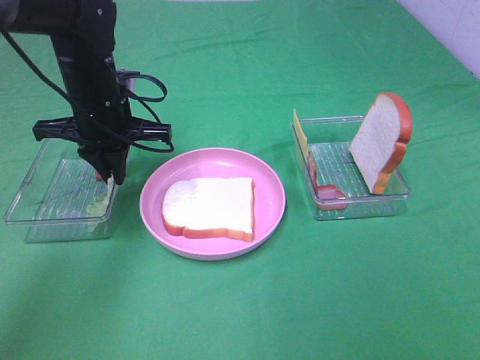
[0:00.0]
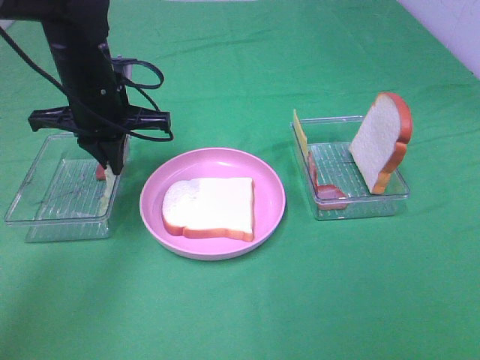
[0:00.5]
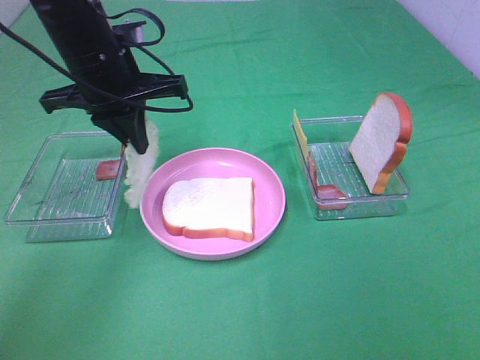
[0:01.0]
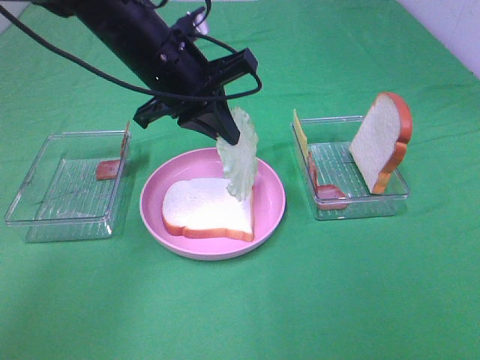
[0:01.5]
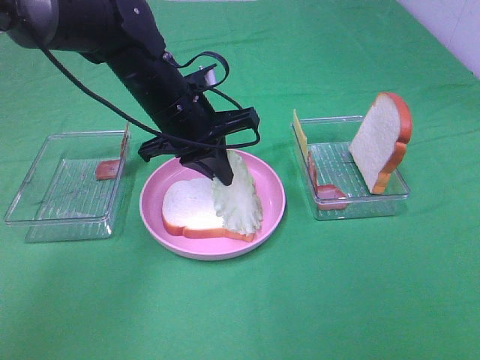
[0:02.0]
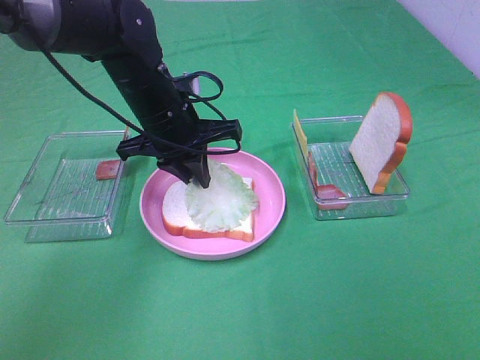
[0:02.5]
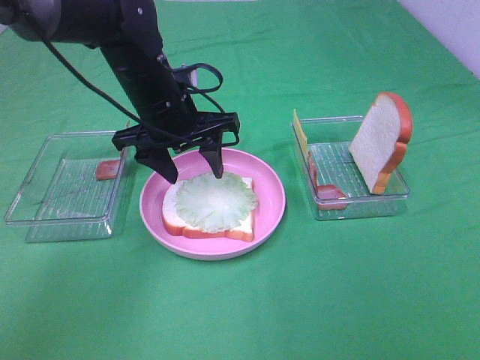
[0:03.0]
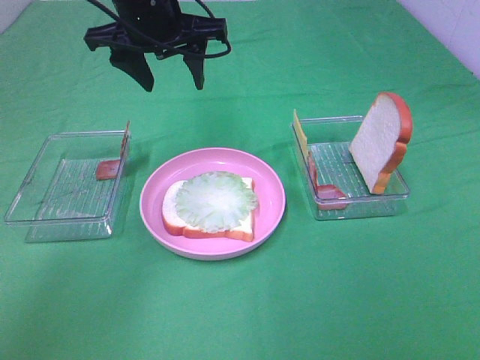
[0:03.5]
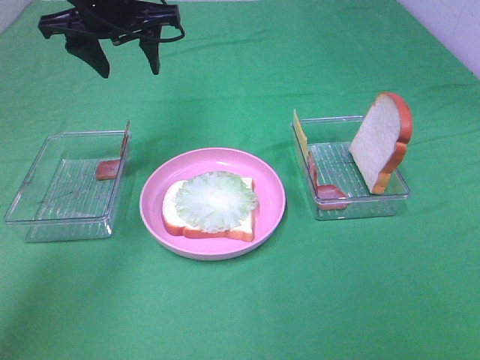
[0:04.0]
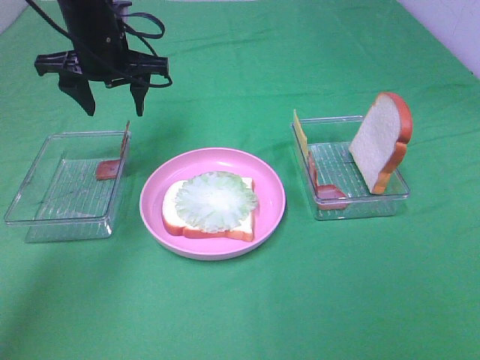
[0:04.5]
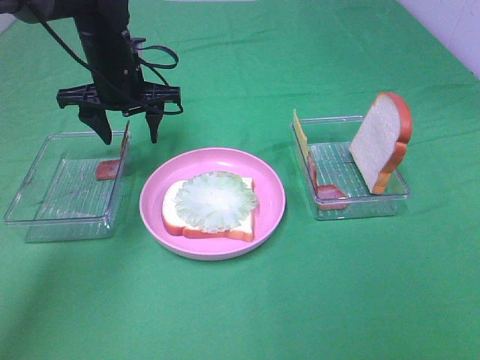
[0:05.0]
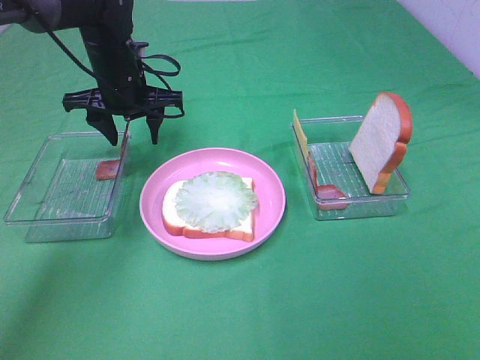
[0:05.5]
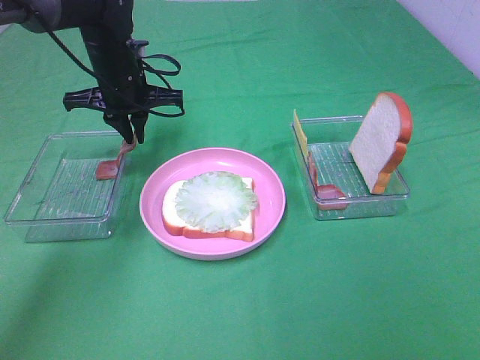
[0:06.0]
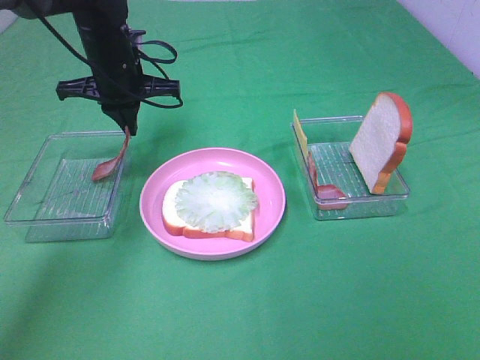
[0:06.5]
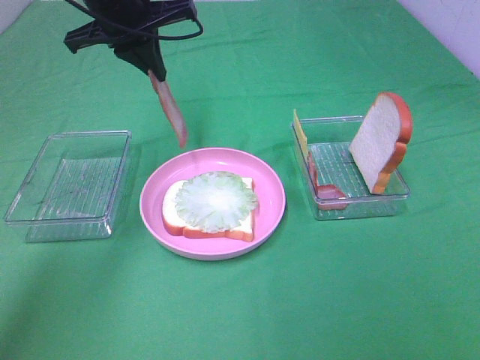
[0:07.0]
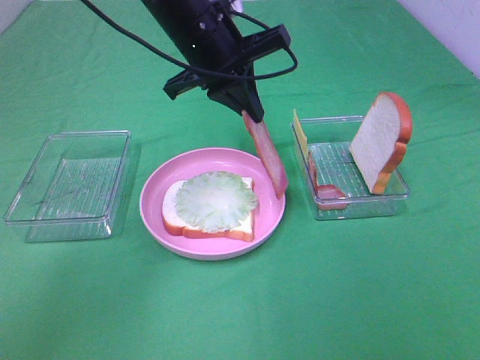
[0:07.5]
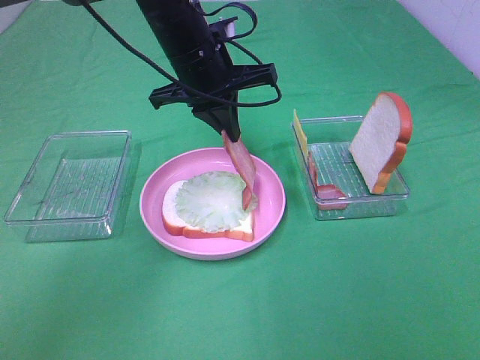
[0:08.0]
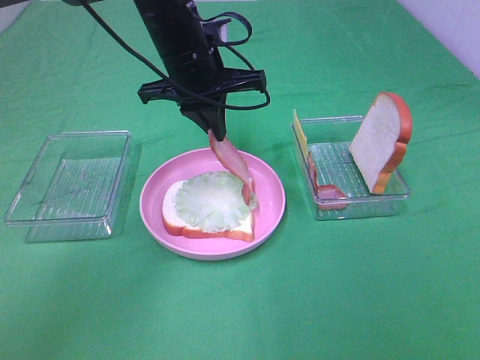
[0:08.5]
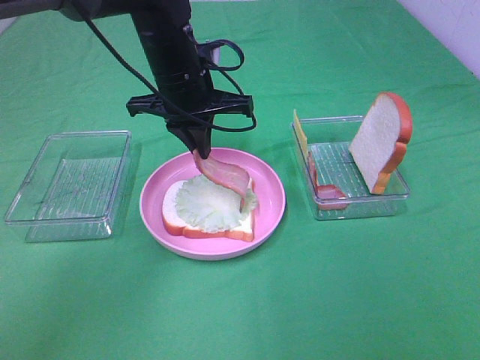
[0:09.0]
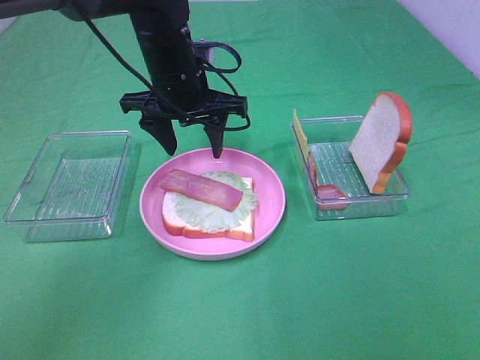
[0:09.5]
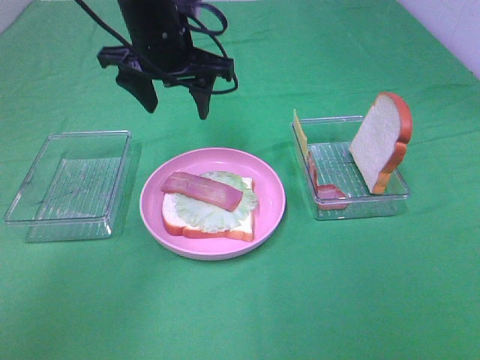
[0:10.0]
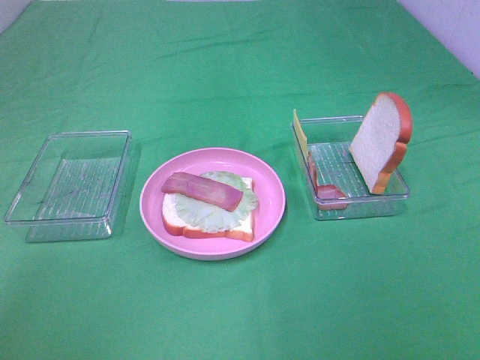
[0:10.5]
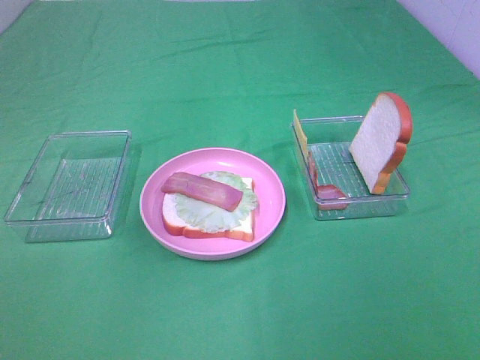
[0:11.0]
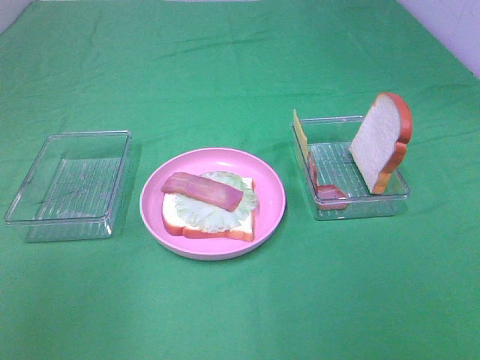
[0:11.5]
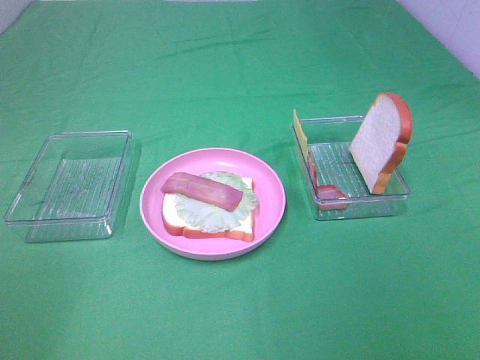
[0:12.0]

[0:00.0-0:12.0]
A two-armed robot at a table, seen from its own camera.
Task of the whole recording: Make sandwiches.
Step, 0:00.5 to 0:03.0: Left hand:place the lettuce slice on the bread slice.
Step, 0:03.5 to 0:06.0: Left hand:grab the bacon.
Step, 0:06.5 to 0:09.5: Left hand:place bacon on lettuce slice.
0:00.0 to 0:02.0: The left gripper is displaced to the right by about 10 cm.
0:02.0 to 0:04.0: The left gripper is displaced upward, to the left and forward by about 15 cm, and opens.
0:04.0 to 0:06.0: The left gripper shifts about 10 cm downward, and closes up.
0:06.0 to 0:08.0: The left gripper is displaced to the right, backward and upward by approximately 15 cm.
0:08.0 to 0:10.0: The left gripper opens.
0:10.0 to 0:12.0: The left gripper is displaced backward and to the left by roughly 40 cm.

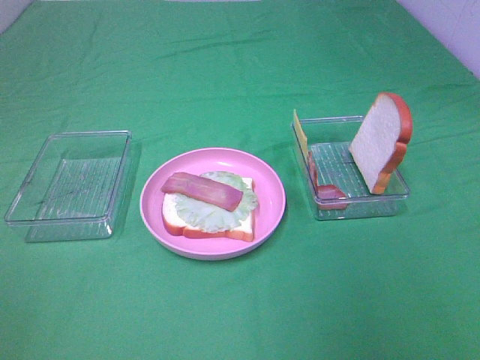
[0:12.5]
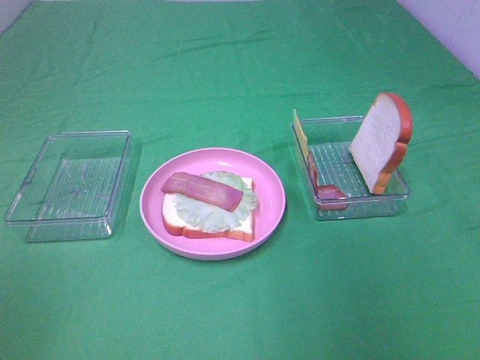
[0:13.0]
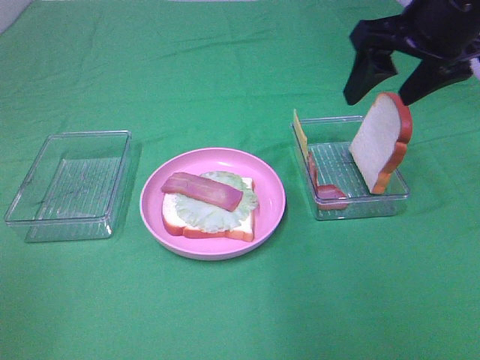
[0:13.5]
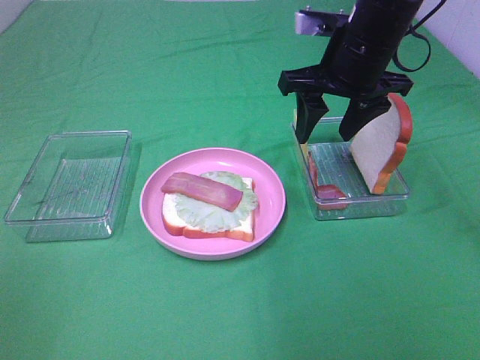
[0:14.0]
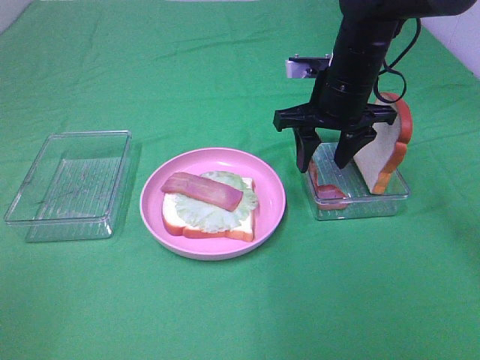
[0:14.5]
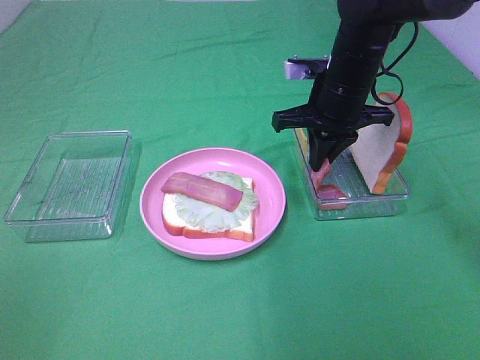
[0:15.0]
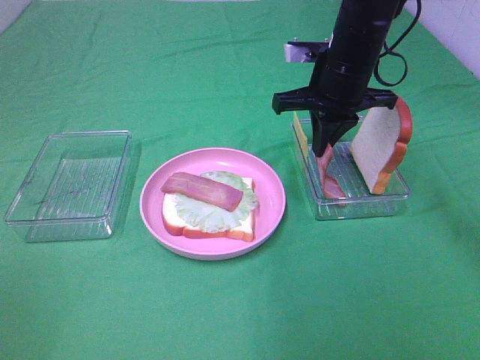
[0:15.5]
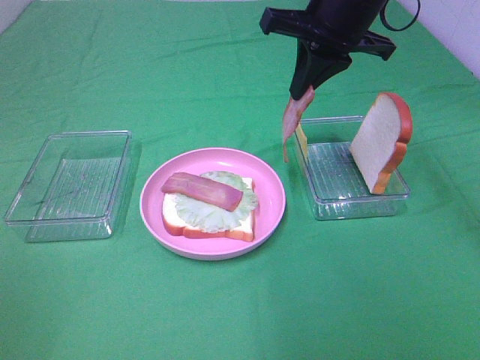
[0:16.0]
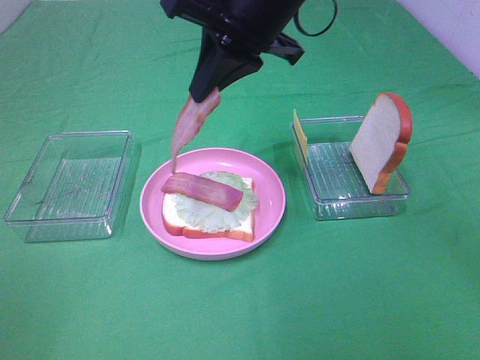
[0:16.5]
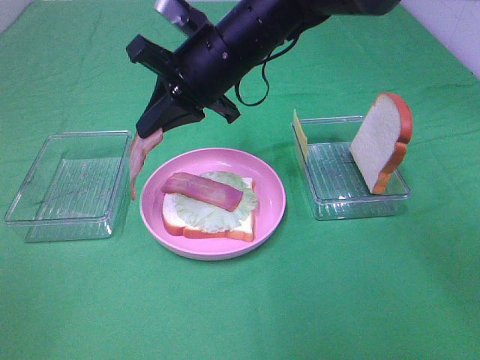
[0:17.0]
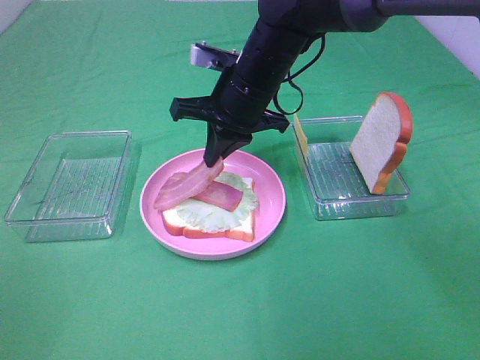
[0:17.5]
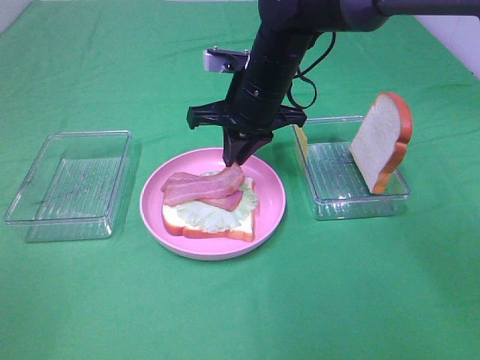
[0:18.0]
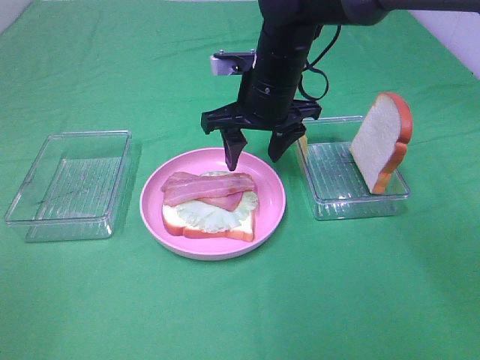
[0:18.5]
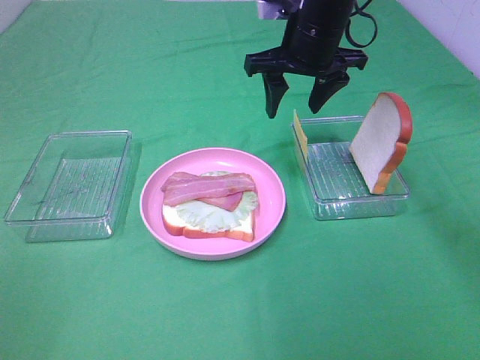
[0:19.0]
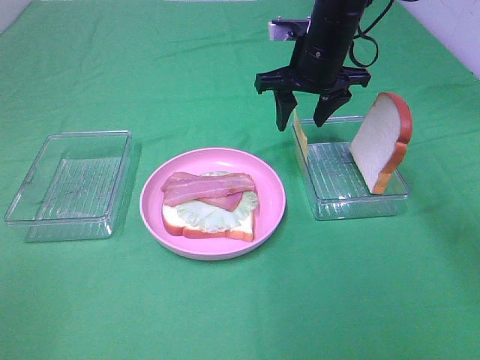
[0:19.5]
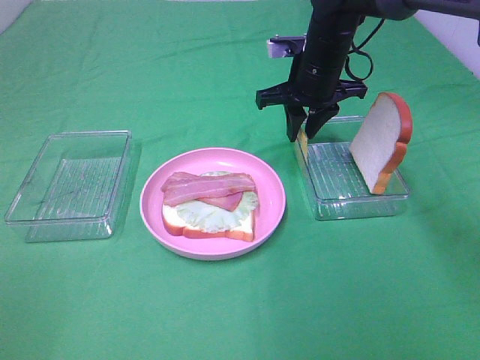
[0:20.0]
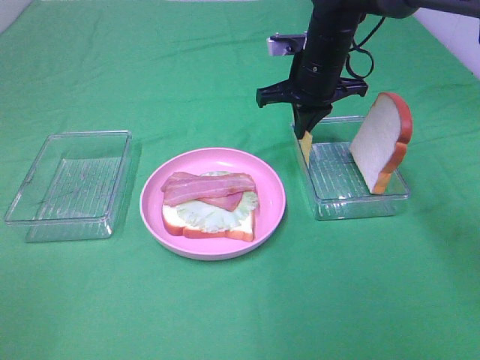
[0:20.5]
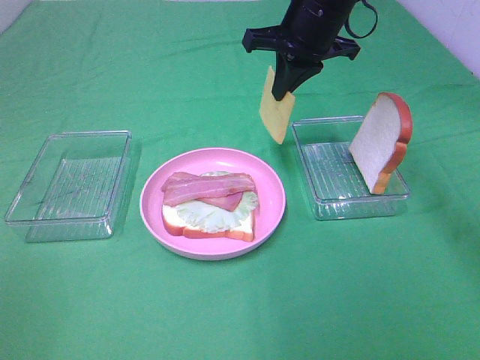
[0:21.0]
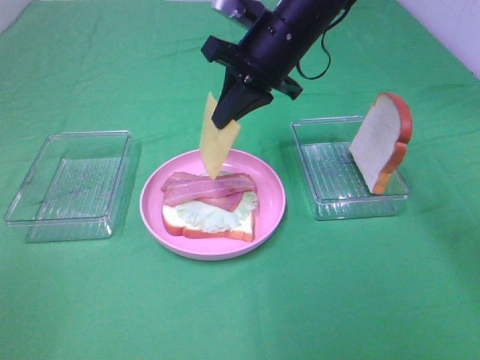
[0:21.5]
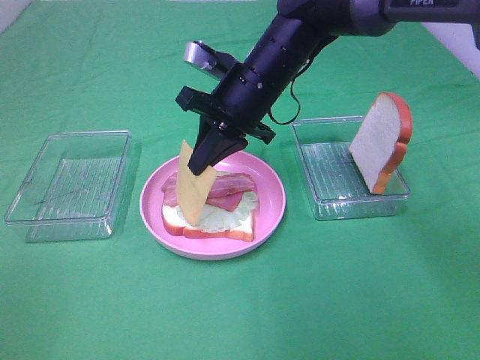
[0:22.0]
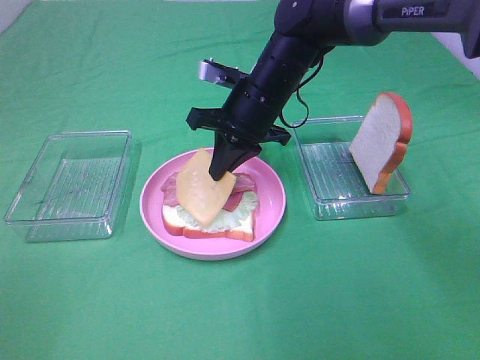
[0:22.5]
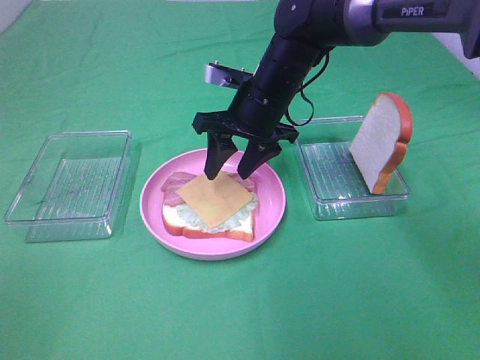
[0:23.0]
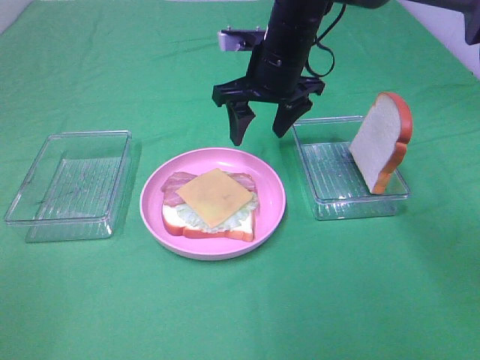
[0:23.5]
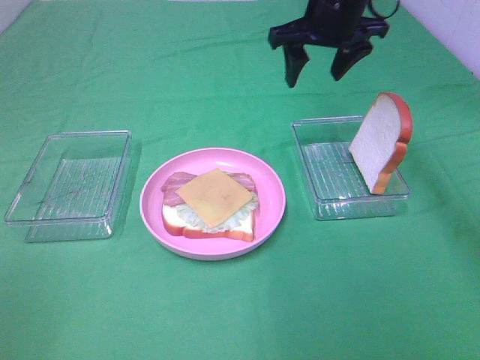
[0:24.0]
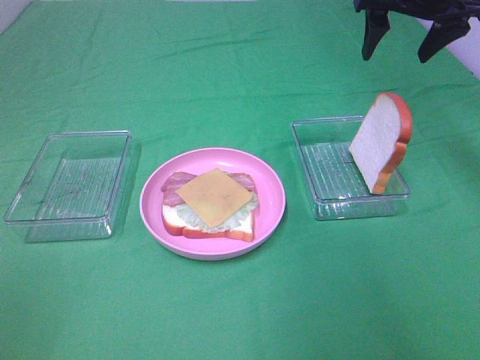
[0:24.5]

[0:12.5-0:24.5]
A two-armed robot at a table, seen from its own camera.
Task of the whole recording: Make sandwiches.
Step, 0:12.5 to 0:15.0: Right hand:grab the bacon.
Step, 0:15.5 to 0:18.0: Right hand:place bacon on bacon.
Step, 0:18.5 to 0:20.0: Right hand:grab the cheese slice.
Step, 0:20.5 to 0:23.0: Right hand:place the cheese slice on top of the bacon.
0:12.5 to 0:14.5: The right gripper moves forward, to the left and downward, roughly 35 cm.
0:14.5 to 0:16.5: The right gripper goes roughly 15 cm upward, to the left and backward, and closes up.
0:16.5 to 0:18.5: The right gripper goes about 10 cm downward, and opens.
0:18.5 to 0:20.5: The right gripper shifts about 10 cm to the right and forward, and closes.
0:20.5 to 0:22.5: The right gripper is displaced to the left and backward by roughly 10 cm, and moves approximately 5 cm upward and comes back.
0:22.5 to 0:24.5: The right gripper goes approximately 25 cm to the right and upward, and opens its fingers.

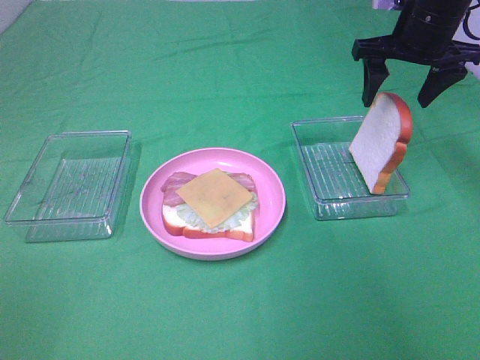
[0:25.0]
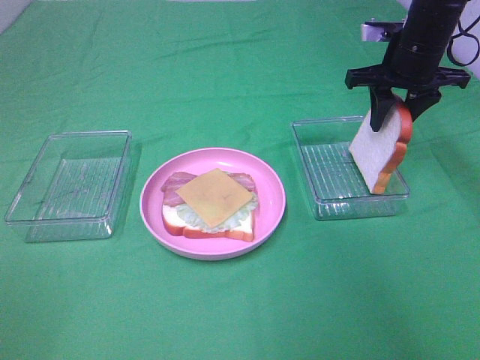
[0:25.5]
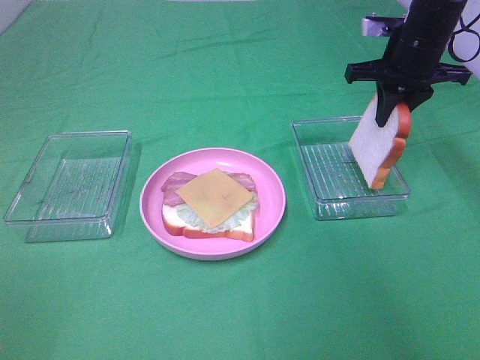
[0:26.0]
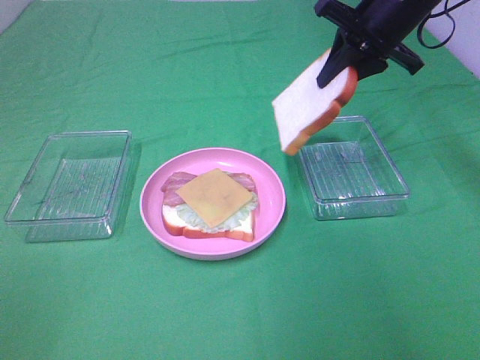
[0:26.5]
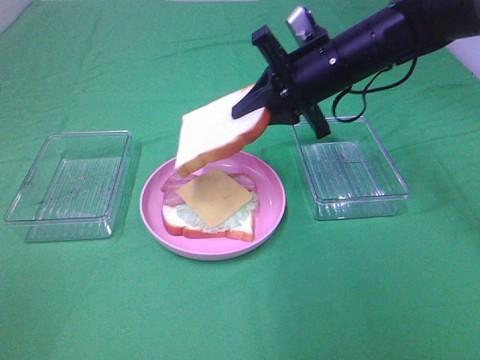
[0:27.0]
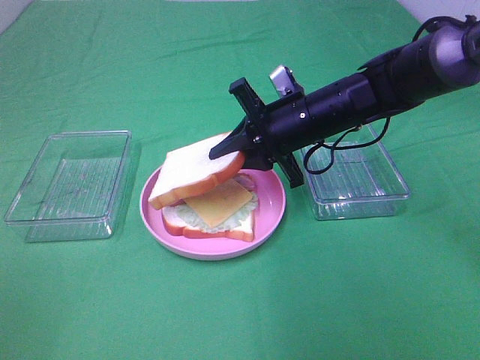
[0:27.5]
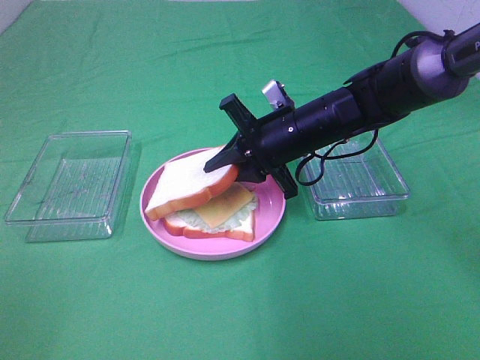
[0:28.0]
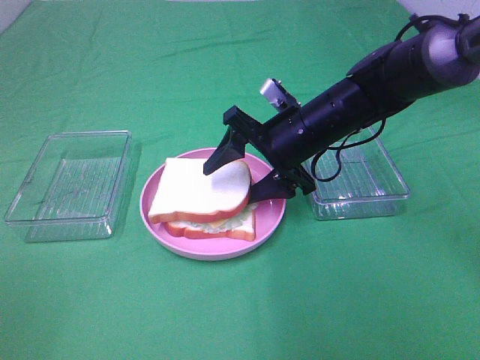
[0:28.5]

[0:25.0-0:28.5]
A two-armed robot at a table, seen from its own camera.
Task of the whole recording: Make sandwiches.
0:25.0 to 0:27.0: The right gripper is displaced to the left, backward and downward by approximately 15 cm, and closes its fingers.
0:27.0 to 0:28.5: The right gripper heads downward, covering about 5 cm, and opens up.
